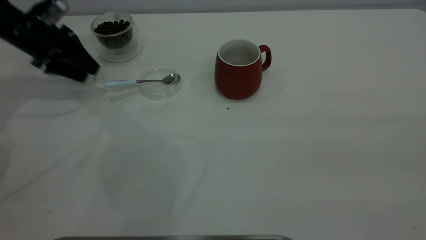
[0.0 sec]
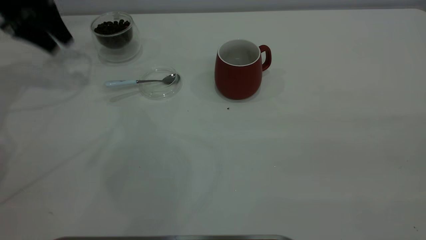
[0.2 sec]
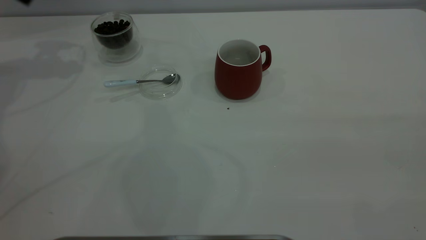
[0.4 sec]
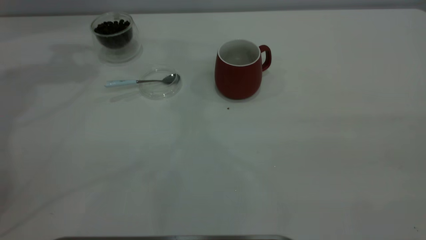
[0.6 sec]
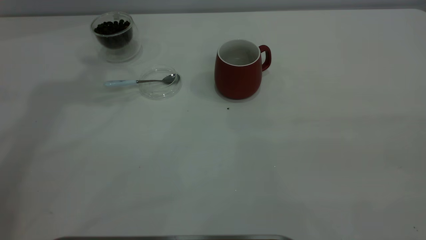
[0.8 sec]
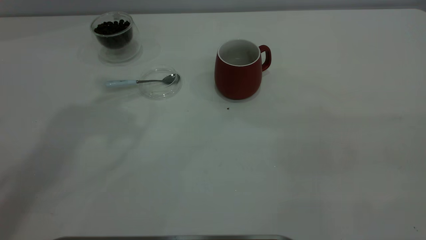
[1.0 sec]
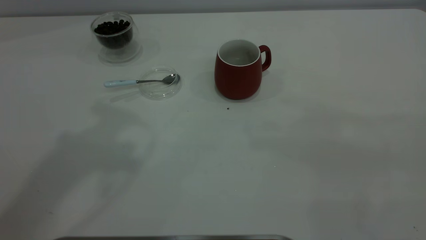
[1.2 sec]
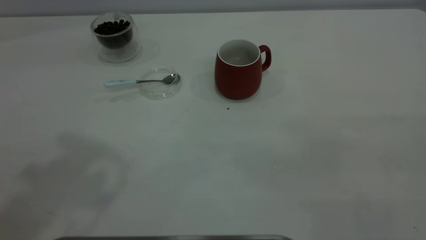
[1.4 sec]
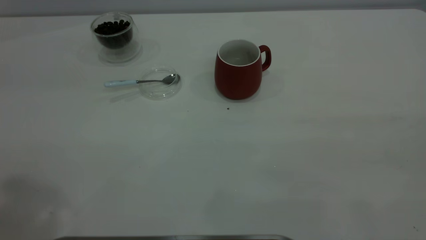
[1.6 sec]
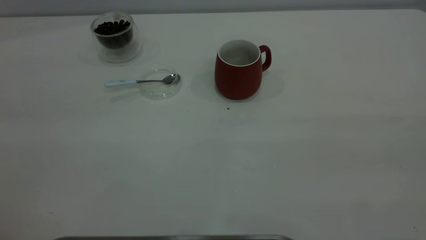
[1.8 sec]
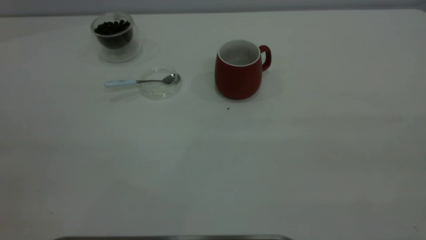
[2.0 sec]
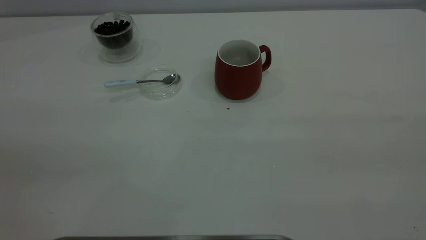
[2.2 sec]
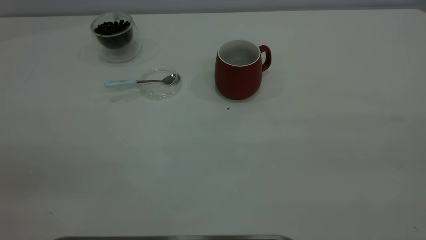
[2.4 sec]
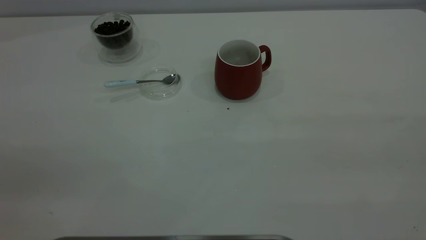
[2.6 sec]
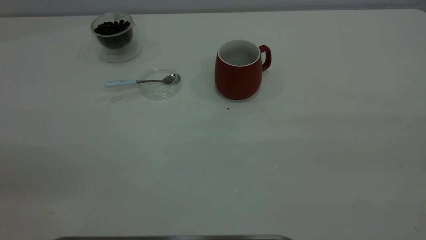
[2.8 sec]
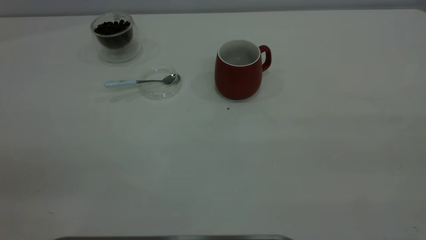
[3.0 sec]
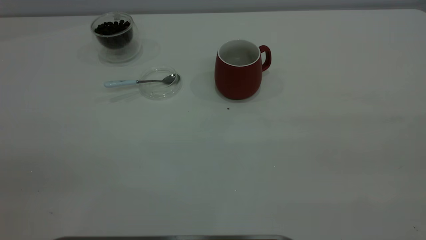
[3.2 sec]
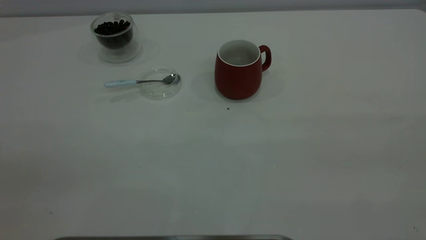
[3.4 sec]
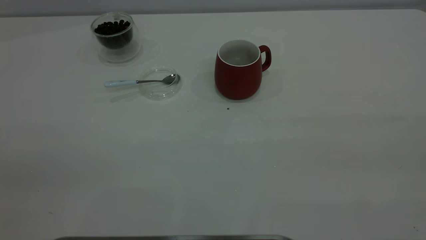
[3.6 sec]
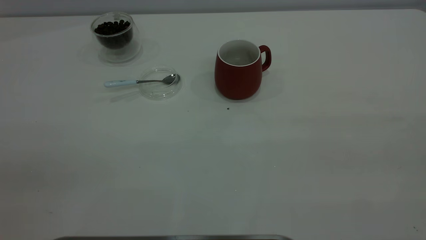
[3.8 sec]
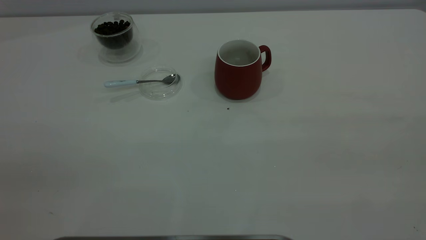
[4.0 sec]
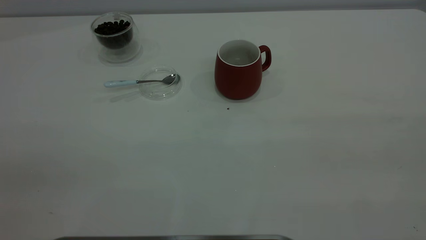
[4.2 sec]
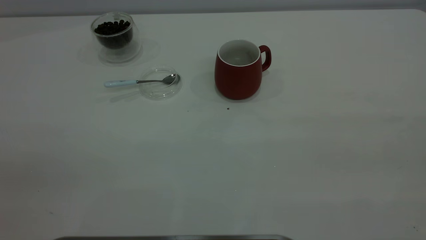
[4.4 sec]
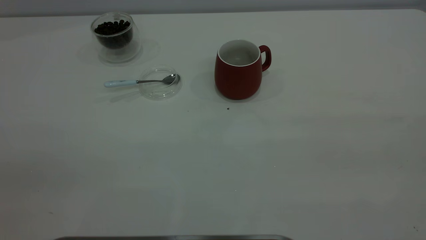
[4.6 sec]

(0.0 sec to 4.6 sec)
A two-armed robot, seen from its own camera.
Task of the whole recording: the right gripper place the red cup in the center of the table, the left gripper take the blue spoon from the cup lid and scoop out the coffee beans from the coffee cup and put them into the red cup, the left gripper put the spoon back into the cup lid.
0.0 sec - 1.6 sec: The left gripper moves upward and backward, about 50 cm.
